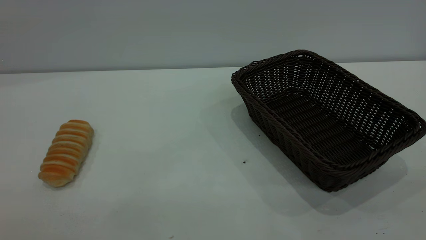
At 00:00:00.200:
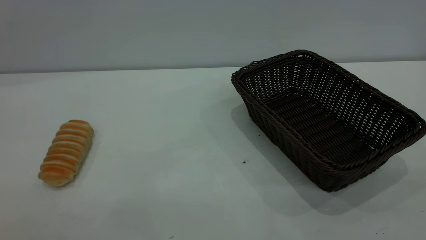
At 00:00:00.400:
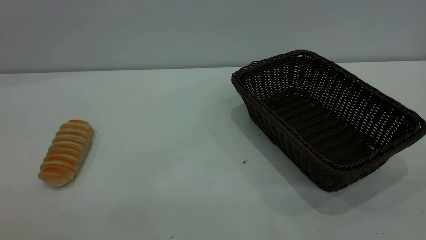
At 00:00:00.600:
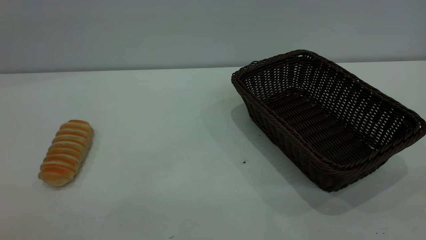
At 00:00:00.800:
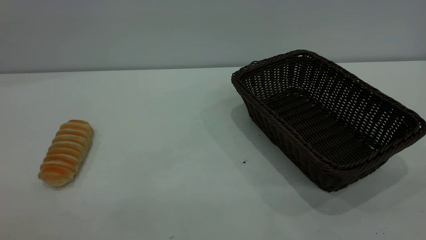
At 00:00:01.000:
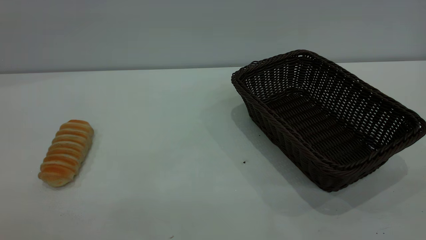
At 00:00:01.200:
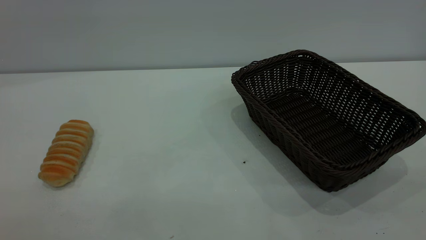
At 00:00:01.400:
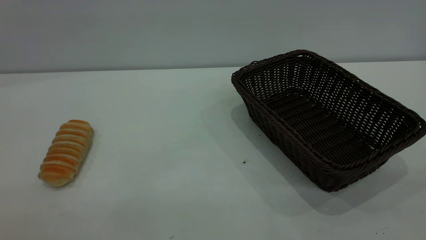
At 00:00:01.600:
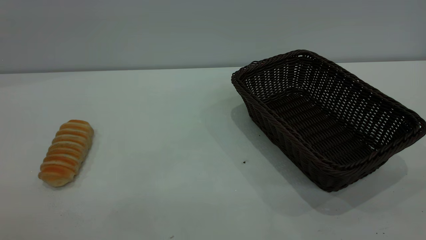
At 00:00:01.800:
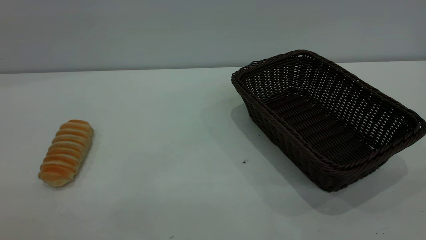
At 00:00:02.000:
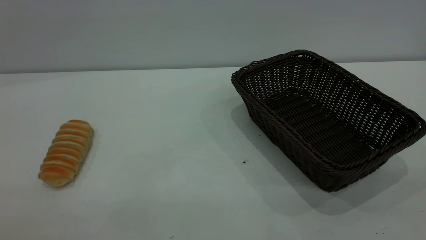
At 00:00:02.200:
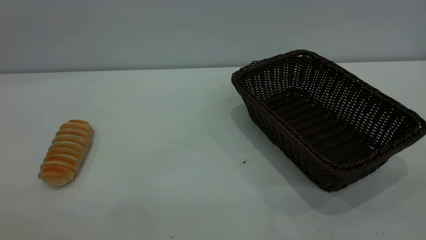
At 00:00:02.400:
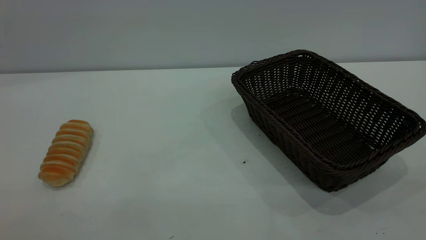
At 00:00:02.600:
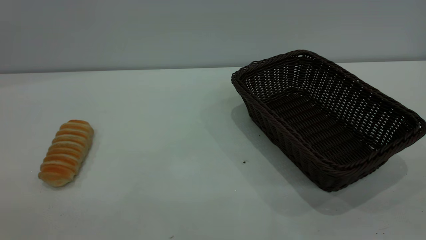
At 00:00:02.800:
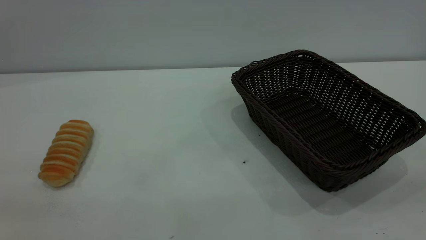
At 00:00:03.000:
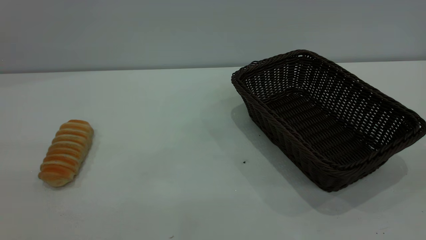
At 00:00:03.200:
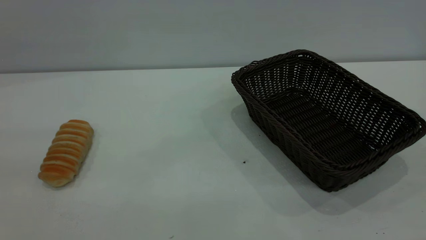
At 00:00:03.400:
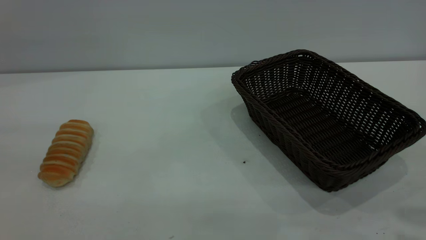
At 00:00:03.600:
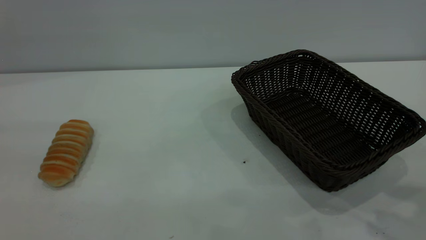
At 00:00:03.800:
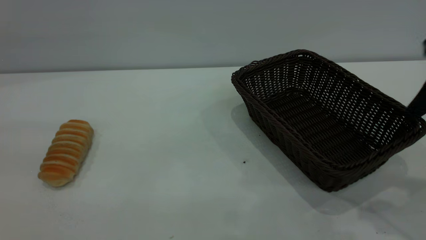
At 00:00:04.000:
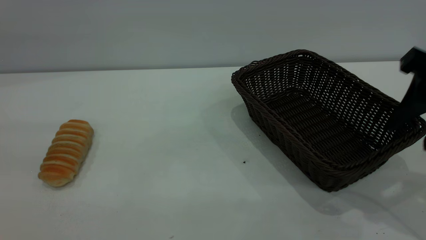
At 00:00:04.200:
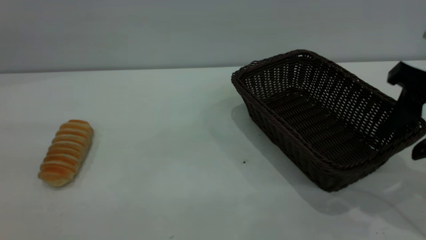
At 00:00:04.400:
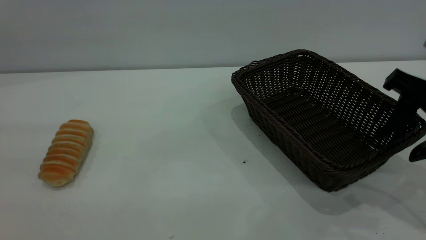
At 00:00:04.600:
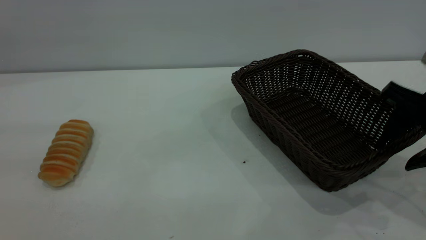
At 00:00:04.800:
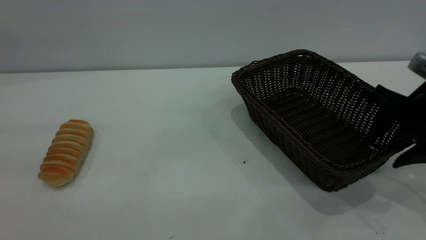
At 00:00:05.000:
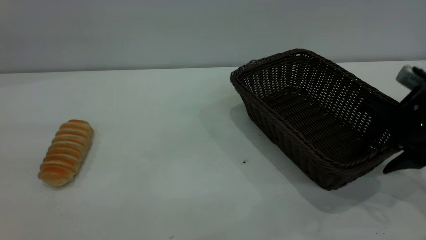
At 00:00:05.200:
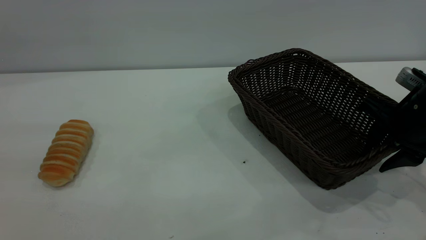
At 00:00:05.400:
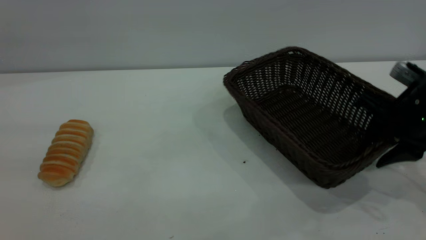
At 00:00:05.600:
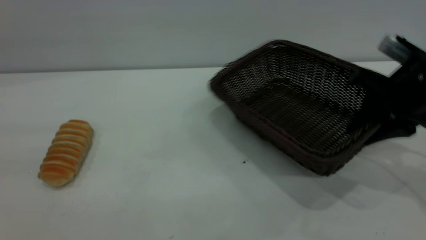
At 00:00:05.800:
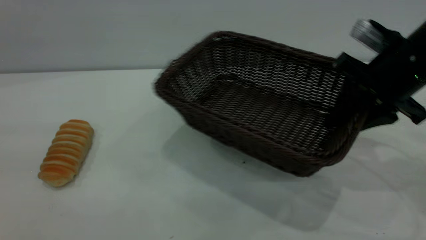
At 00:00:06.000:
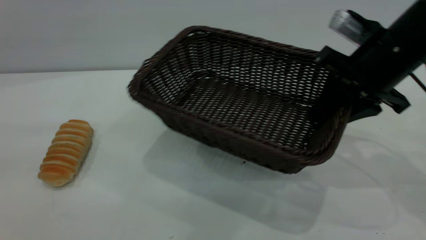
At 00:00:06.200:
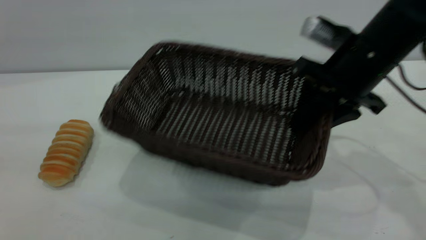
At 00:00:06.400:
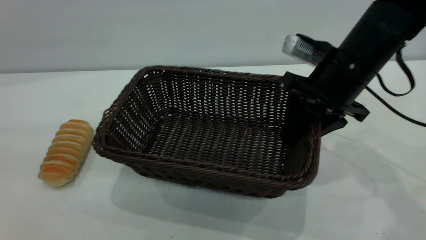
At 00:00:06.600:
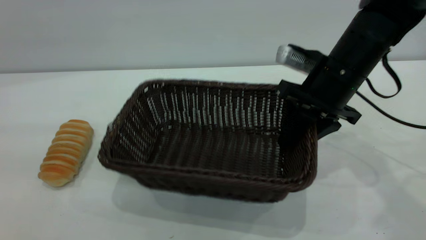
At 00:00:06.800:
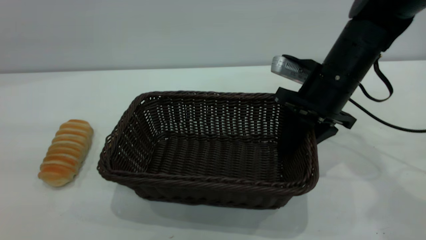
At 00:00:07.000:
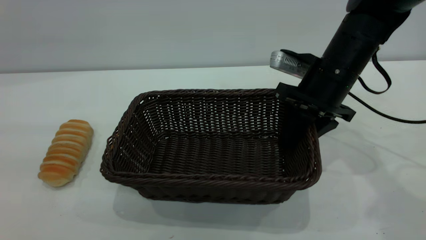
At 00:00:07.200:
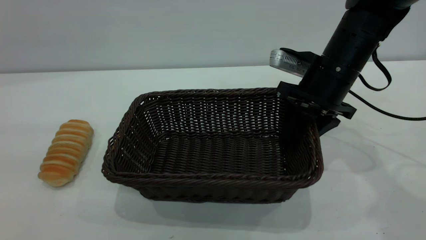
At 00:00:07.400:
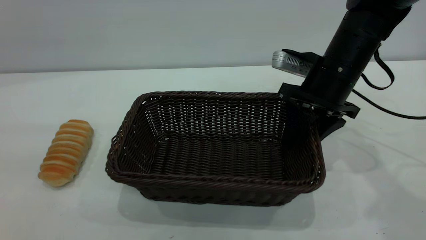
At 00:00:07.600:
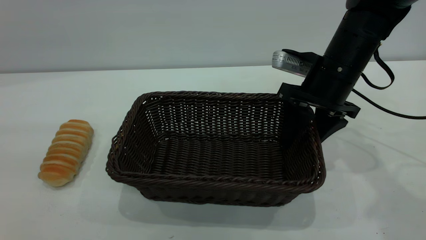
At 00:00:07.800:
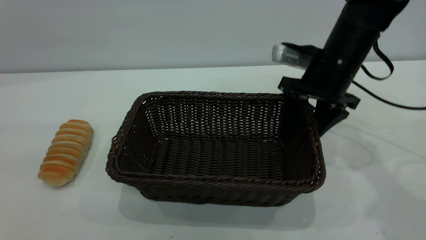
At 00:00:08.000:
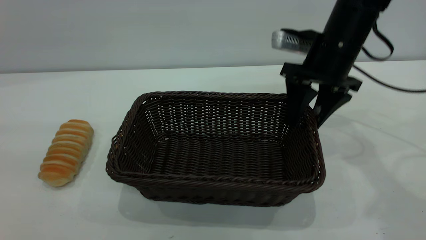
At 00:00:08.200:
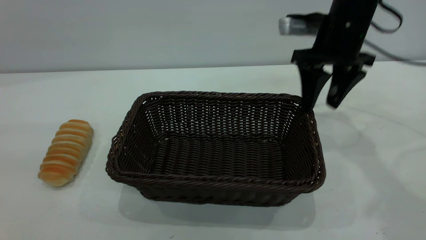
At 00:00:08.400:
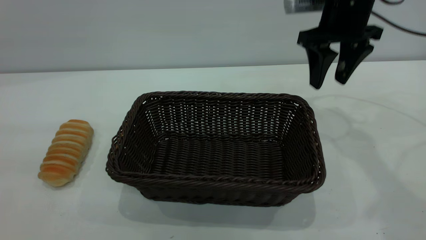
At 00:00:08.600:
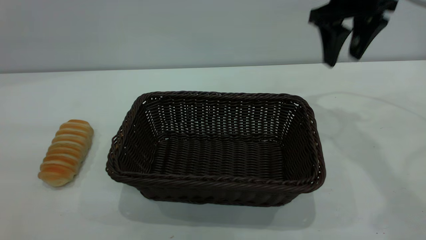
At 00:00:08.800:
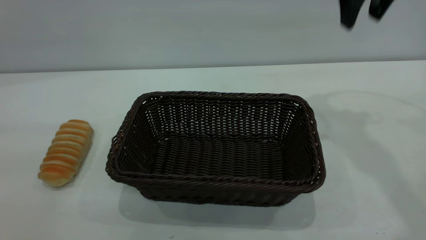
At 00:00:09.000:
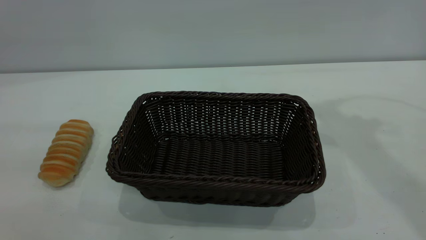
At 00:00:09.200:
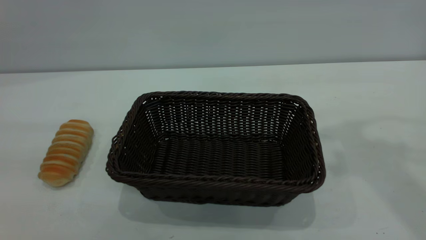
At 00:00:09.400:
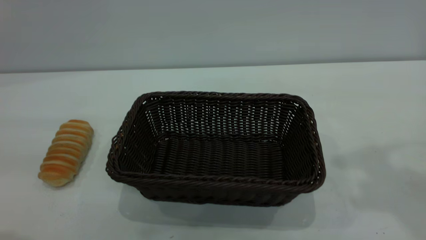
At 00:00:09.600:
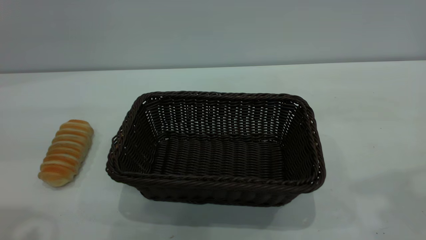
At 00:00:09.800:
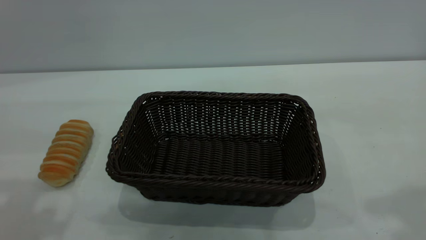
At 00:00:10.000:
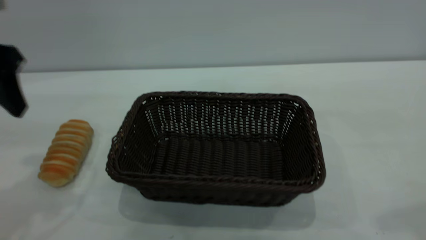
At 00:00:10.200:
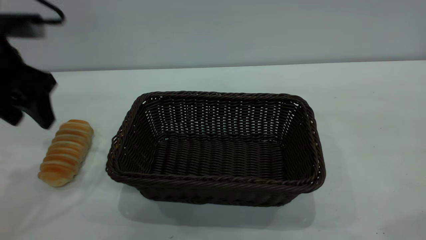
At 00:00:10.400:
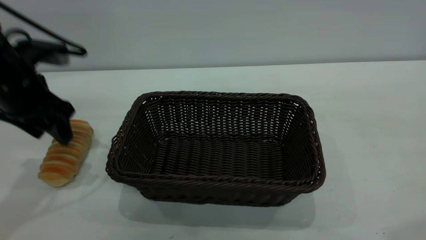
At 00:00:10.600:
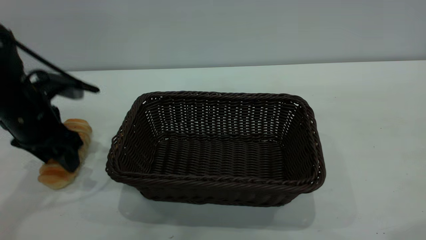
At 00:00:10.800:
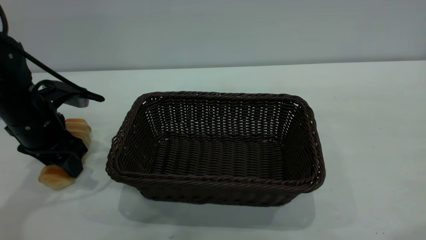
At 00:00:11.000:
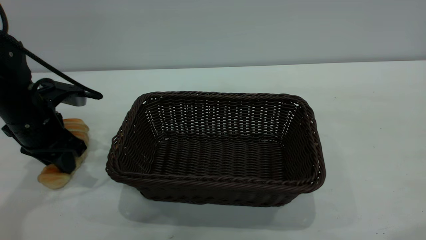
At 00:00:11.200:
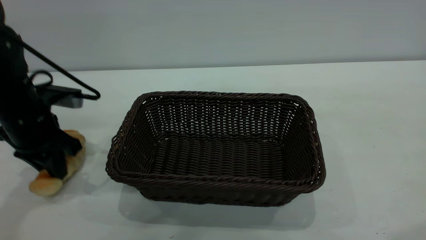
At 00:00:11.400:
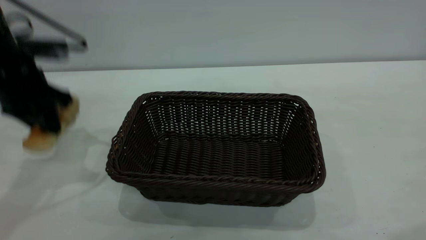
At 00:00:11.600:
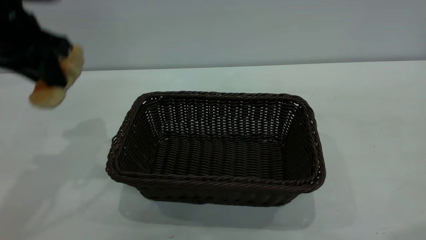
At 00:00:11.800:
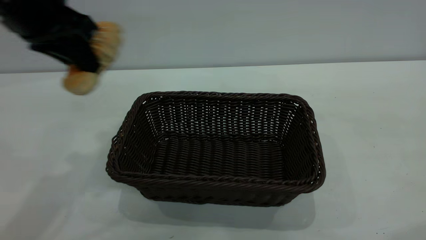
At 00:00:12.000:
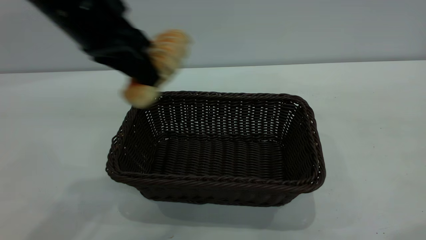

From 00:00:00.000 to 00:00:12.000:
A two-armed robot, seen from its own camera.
Task of the whole recording: One hand grasps the black basket and places it in the middle of the table, while the other hand picks up the long bread and puts it into the black basket.
Step, from 00:00:00.000 to 00:00:08.200: Move the basket to the center of view.
From 00:00:00.000 to 00:00:01.600: Neither gripper changes place.
From 00:00:03.000 to 00:00:04.400: The right gripper moves forward and downward, some 25 cm.
From 00:00:04.400 to 00:00:06.000: The right gripper travels forward and to the left by roughly 10 cm, moves about 5 cm downward and comes back, and closes its fingers.
From 00:00:06.000 to 00:00:07.600: The right gripper moves forward and downward, roughly 5 cm, and opens.
From 00:00:07.600 to 00:00:09.000: The right gripper travels upward by about 25 cm.
From 00:00:09.000 to 00:00:10.400: The left gripper heads forward and downward, covering some 30 cm.
From 00:00:10.400 to 00:00:12.000: The left gripper travels to the right and upward by about 20 cm, and closes up.

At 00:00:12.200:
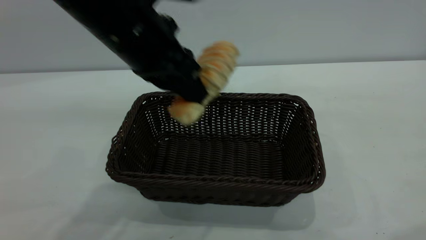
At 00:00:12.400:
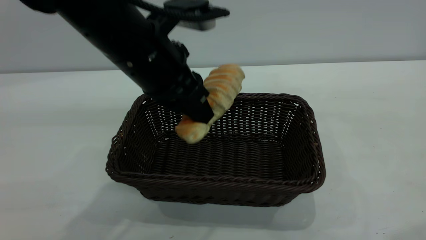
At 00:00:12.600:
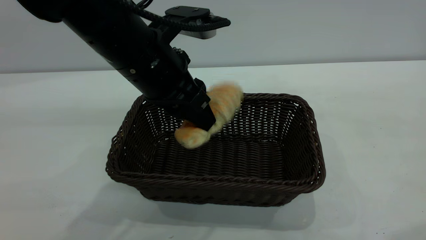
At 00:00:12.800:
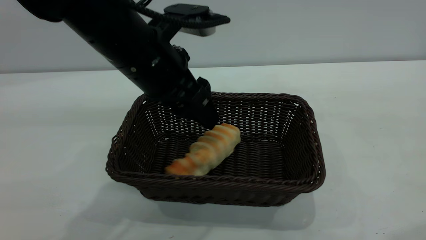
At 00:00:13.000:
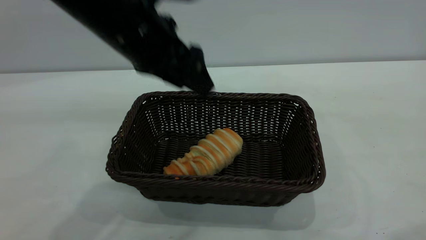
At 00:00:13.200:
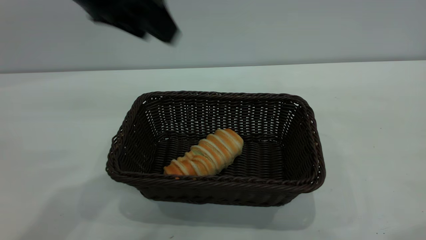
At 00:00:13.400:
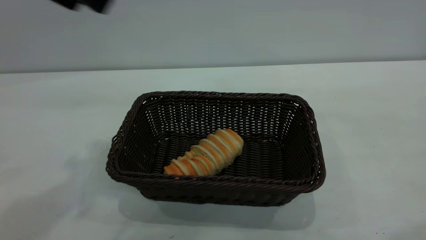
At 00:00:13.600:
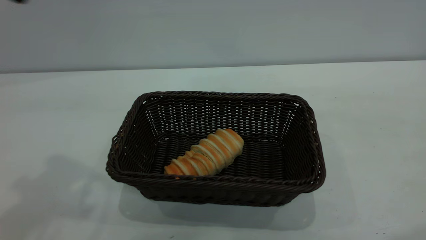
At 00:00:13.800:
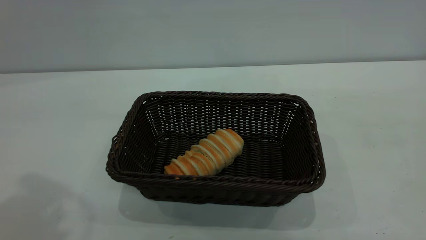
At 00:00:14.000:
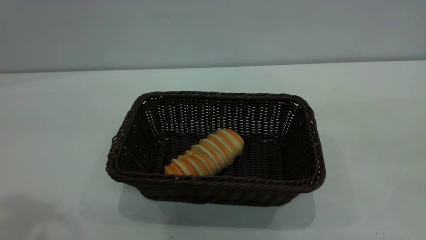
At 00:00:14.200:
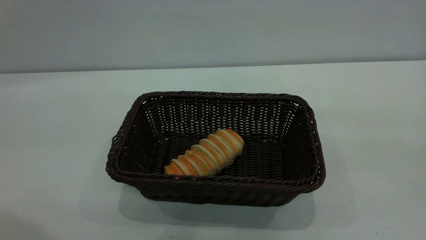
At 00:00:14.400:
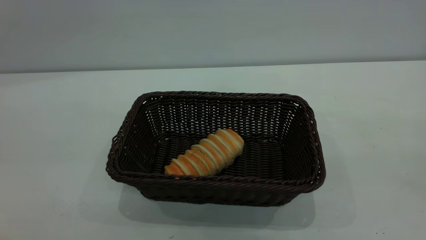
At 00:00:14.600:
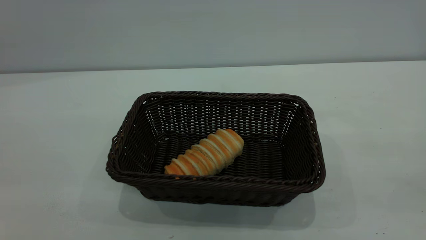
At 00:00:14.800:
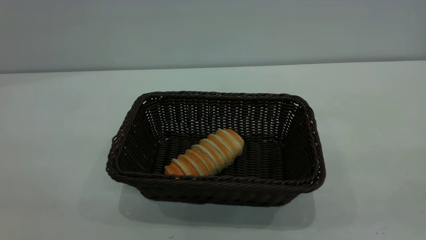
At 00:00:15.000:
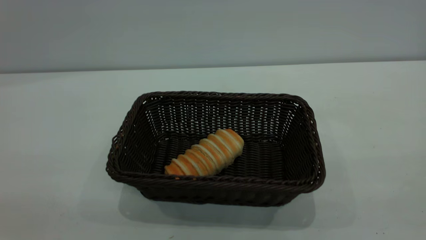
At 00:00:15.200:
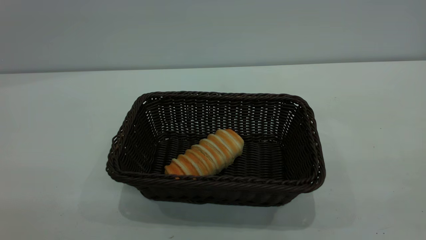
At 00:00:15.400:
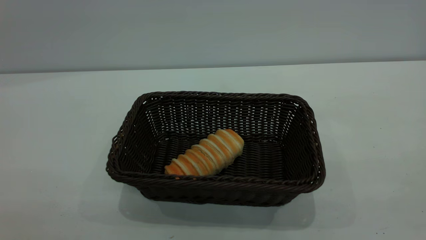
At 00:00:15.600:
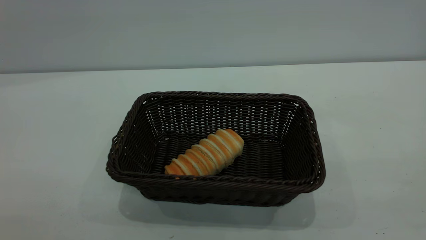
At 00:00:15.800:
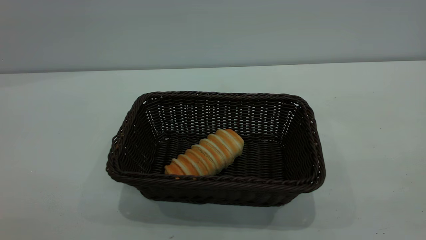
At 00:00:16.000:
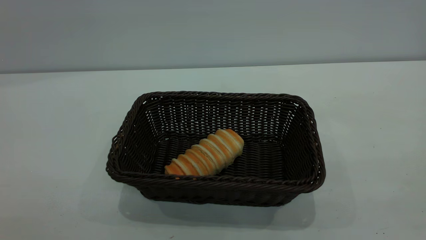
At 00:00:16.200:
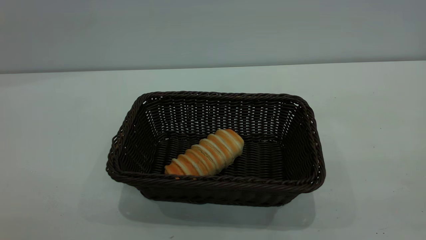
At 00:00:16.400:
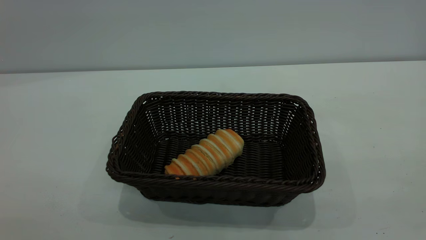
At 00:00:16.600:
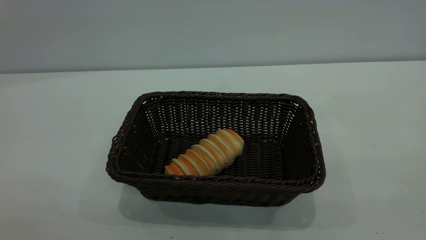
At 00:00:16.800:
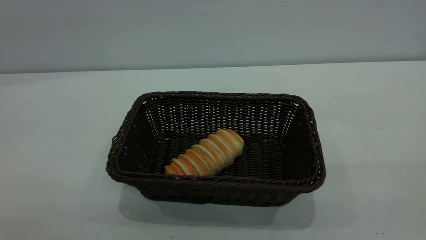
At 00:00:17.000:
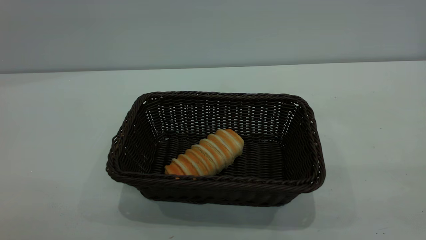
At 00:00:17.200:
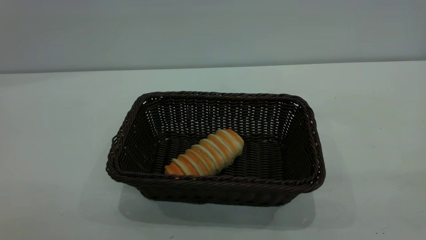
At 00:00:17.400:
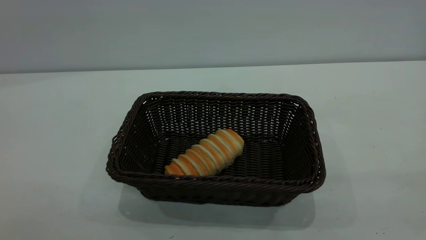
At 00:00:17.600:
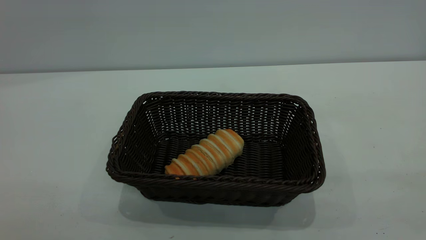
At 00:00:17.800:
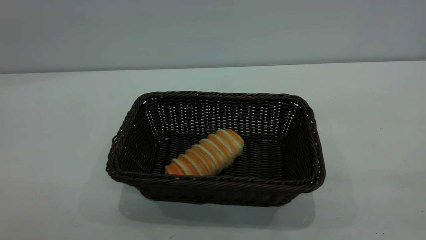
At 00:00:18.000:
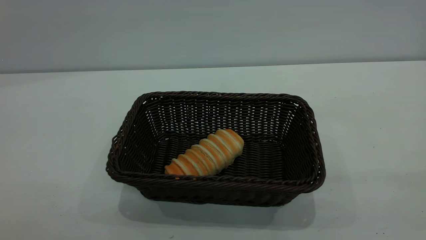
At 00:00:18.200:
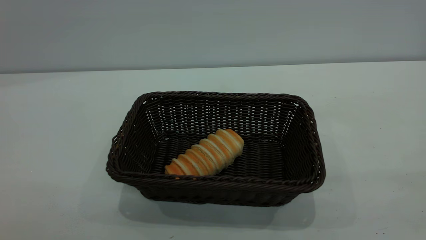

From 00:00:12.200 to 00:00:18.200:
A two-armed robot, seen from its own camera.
Task of the whole recording: One hand grasps the black basket and places it in the middle of the table, while the other hand picks up the long bread and puts it into the black basket.
Step, from 00:00:12.200 to 00:00:13.000: place the bread into the basket.
From 00:00:12.200 to 00:00:13.800: The left gripper heads upward, to the left and backward, covering roughly 25 cm, and opens its fingers.
